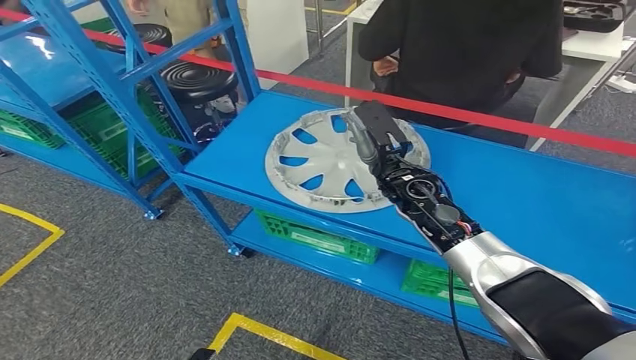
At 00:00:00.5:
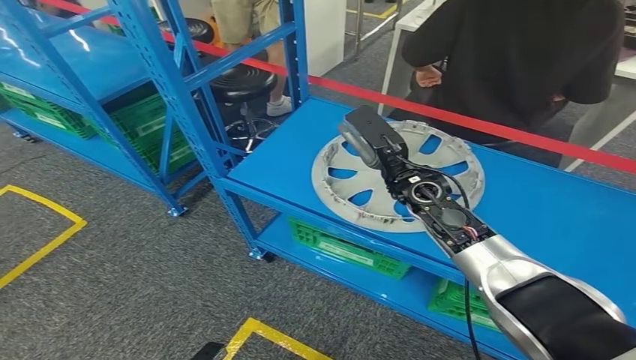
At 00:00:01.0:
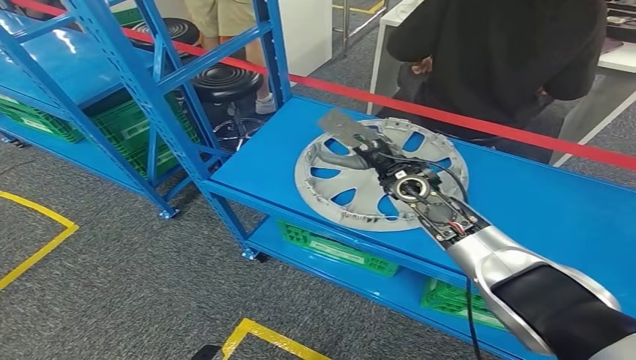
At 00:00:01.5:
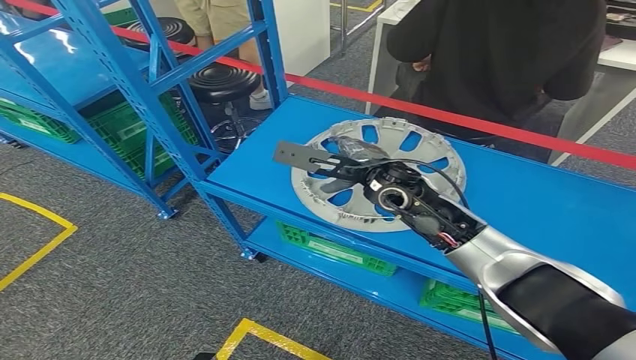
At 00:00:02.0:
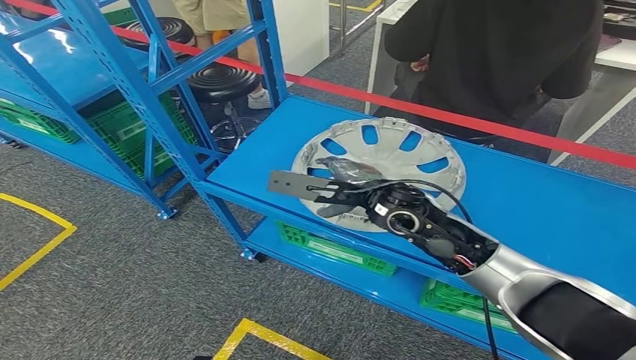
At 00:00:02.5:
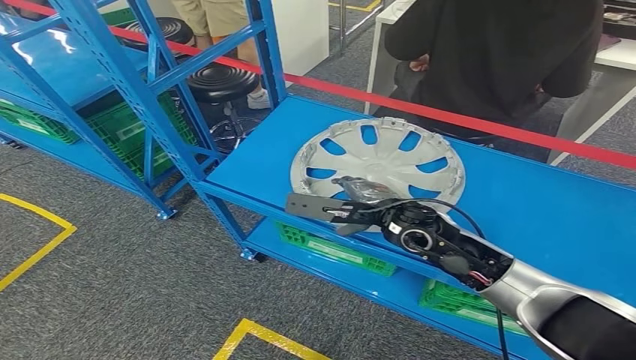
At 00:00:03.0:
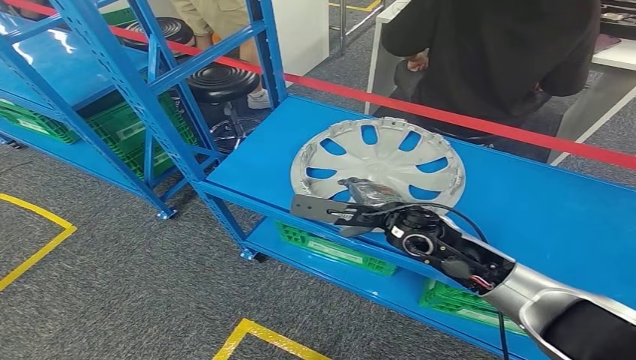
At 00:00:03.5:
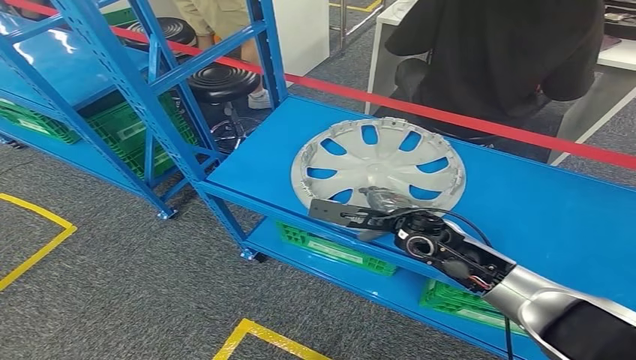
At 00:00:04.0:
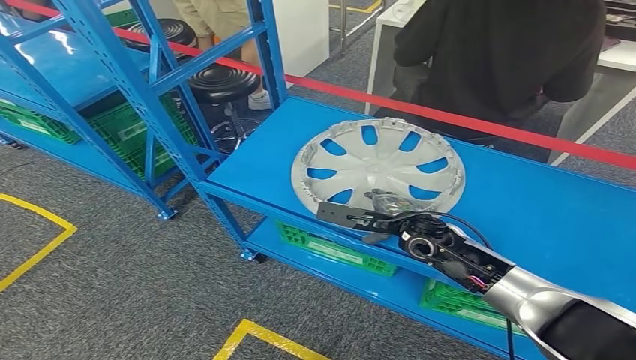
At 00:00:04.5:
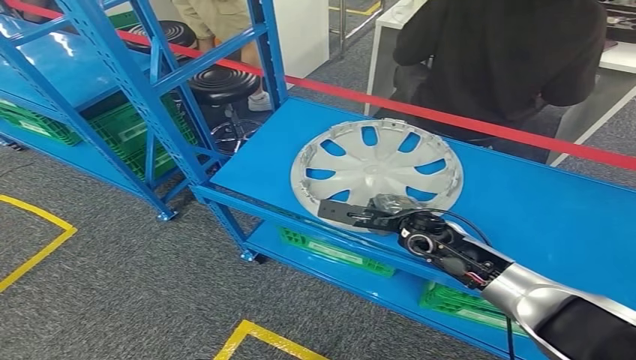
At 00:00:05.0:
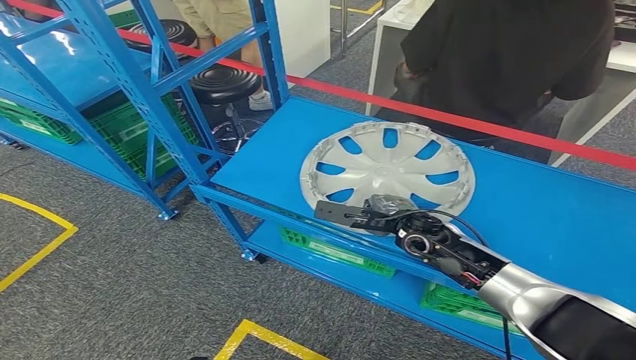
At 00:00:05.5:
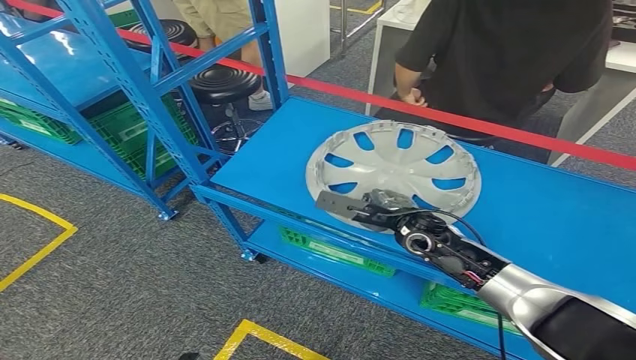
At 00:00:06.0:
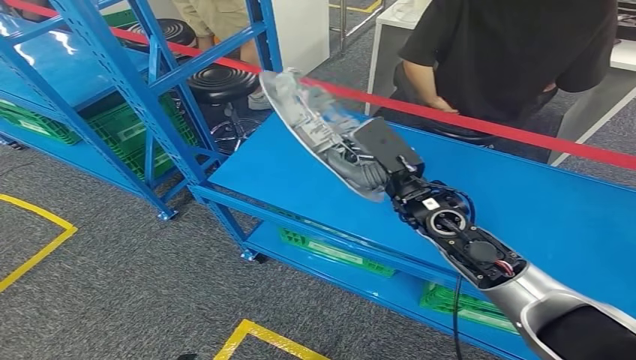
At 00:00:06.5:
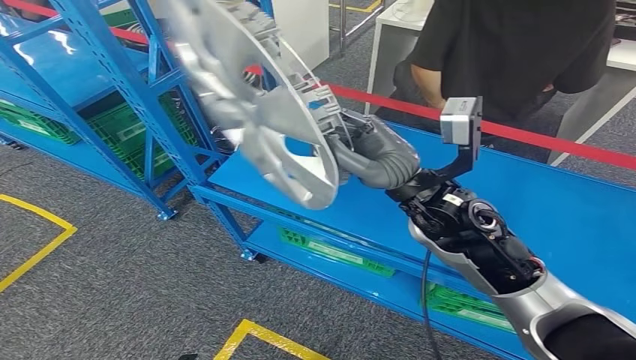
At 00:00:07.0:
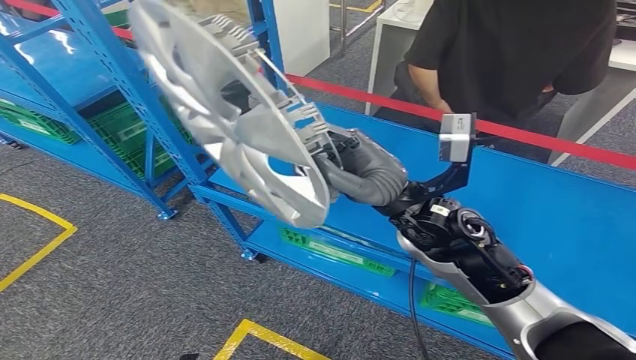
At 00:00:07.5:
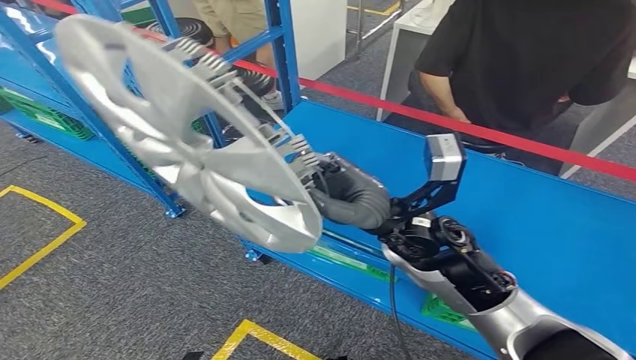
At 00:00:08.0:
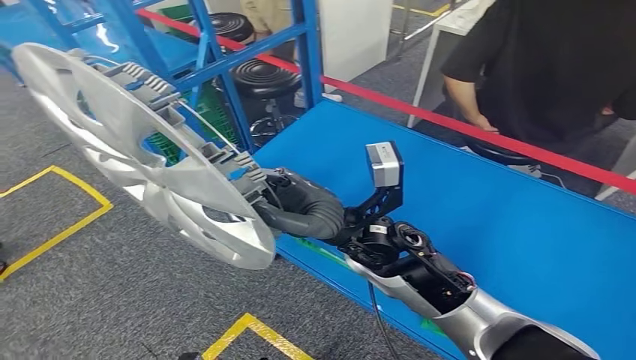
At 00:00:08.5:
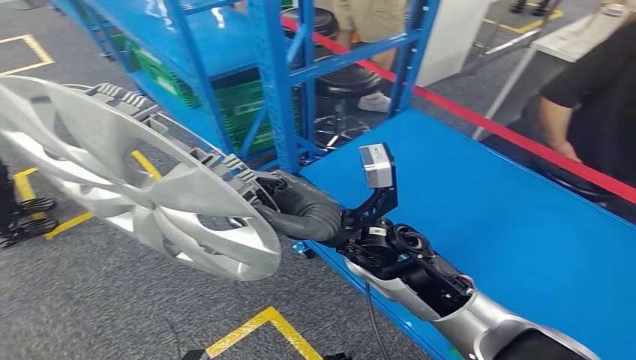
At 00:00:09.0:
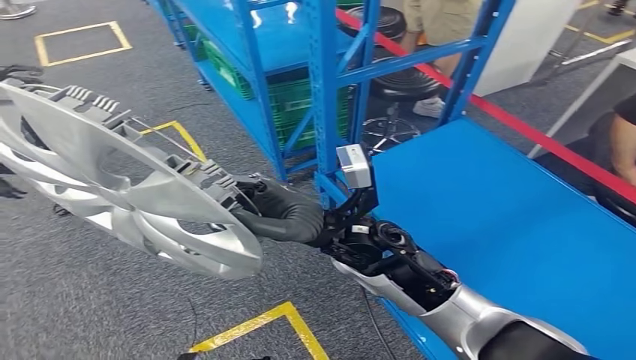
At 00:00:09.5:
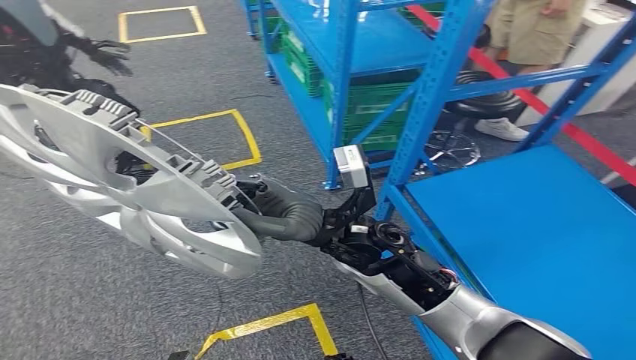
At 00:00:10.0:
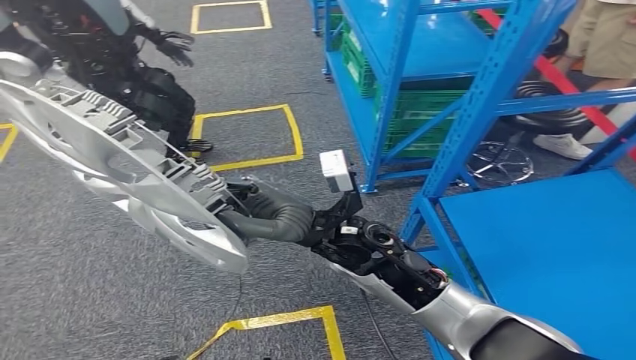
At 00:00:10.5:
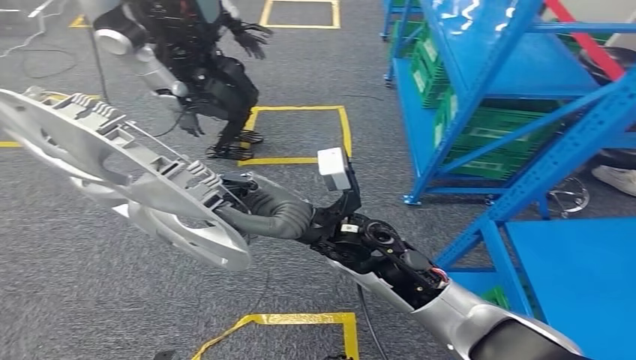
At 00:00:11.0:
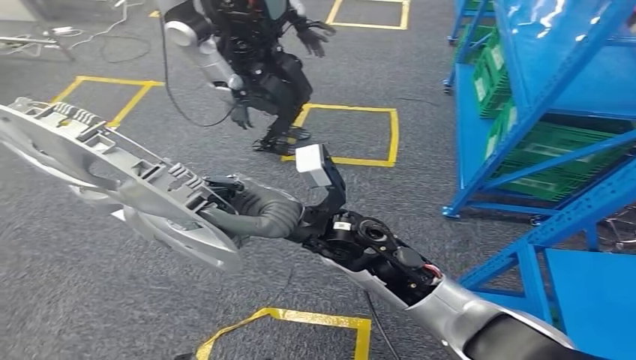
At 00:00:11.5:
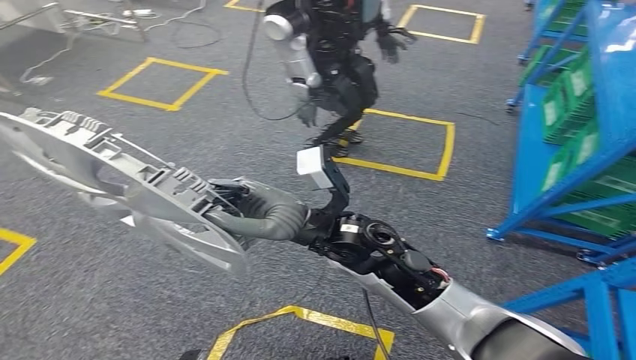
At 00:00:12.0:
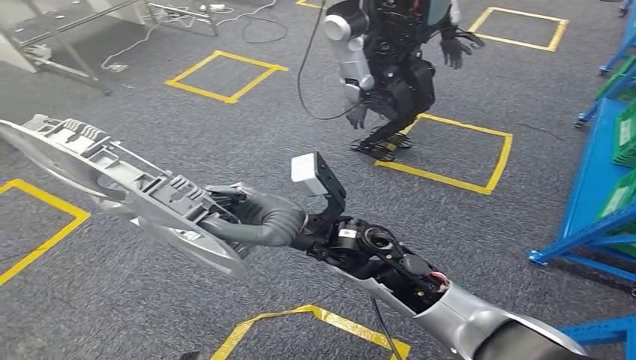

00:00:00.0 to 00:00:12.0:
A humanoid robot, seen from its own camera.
Step, 00:00:00.0 to 00:00:07.0: Pick up the small component from the shelf.
00:00:02.0 to 00:00:04.0: The right hand goes about 10 cm downward and to the right.
00:00:04.0 to 00:00:06.0: The right hand moves upward, approximately 10 cm.

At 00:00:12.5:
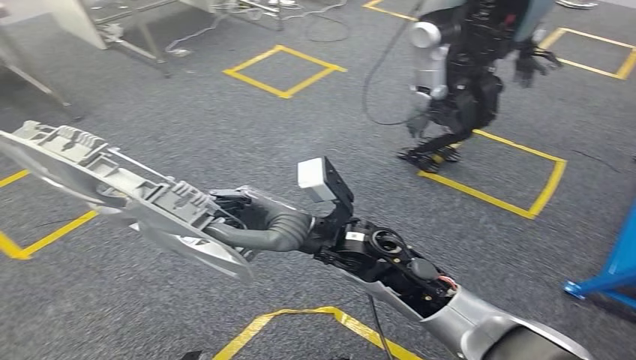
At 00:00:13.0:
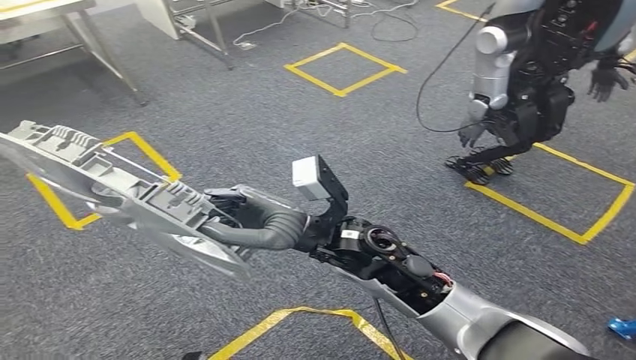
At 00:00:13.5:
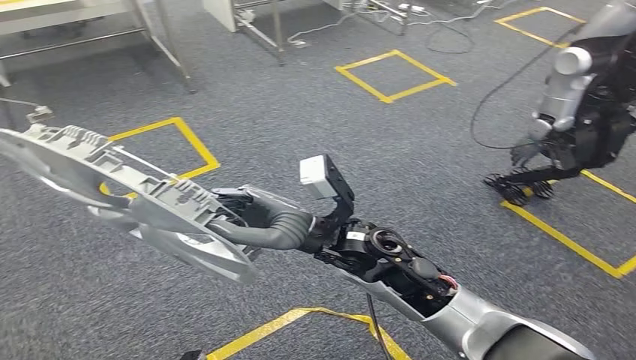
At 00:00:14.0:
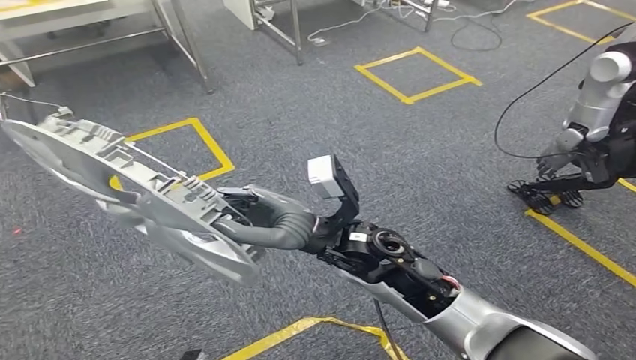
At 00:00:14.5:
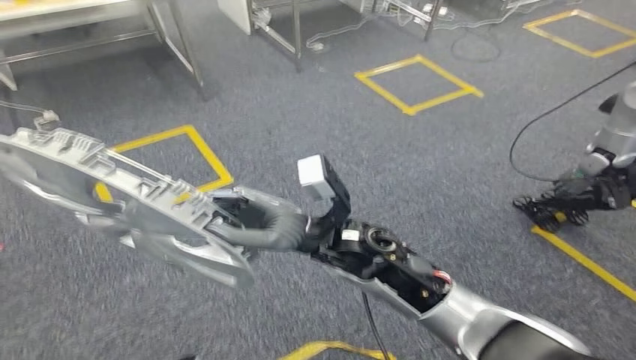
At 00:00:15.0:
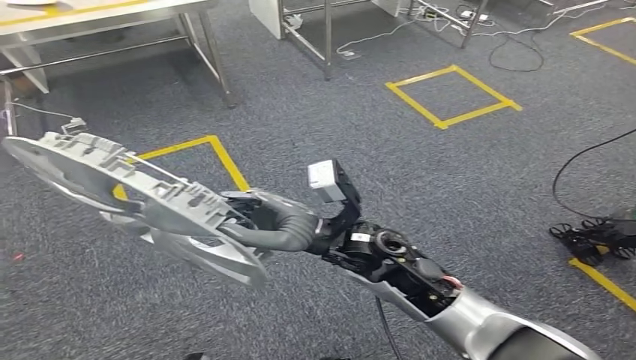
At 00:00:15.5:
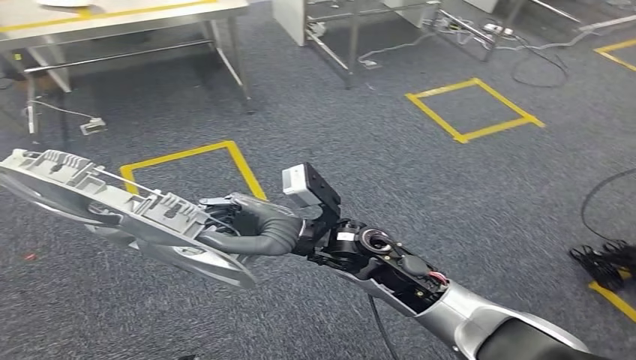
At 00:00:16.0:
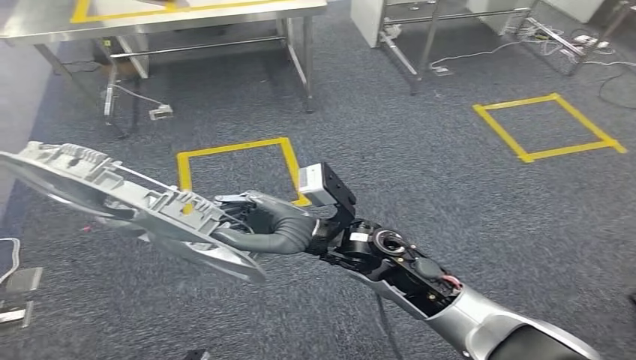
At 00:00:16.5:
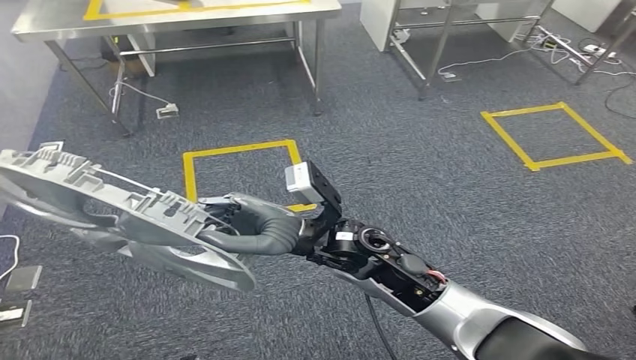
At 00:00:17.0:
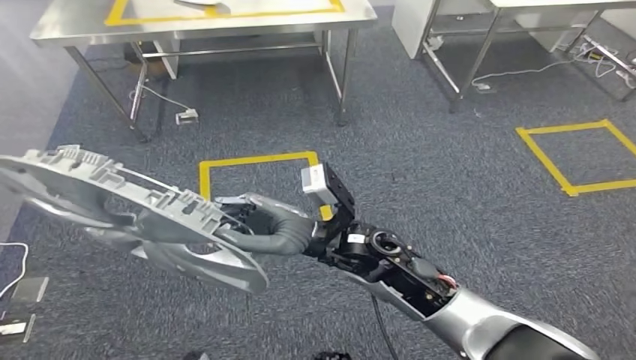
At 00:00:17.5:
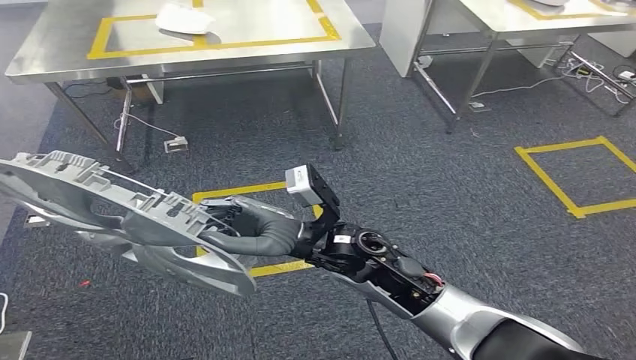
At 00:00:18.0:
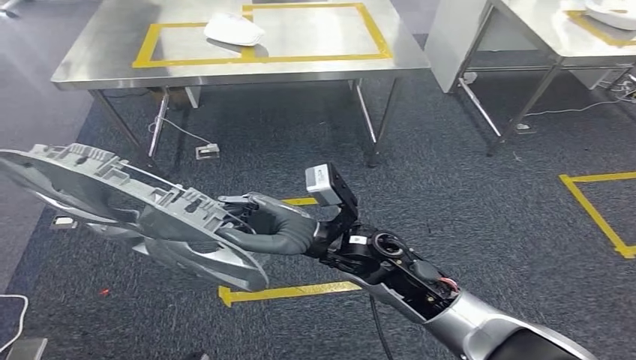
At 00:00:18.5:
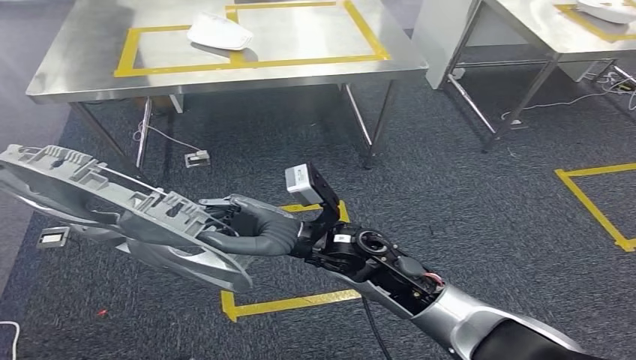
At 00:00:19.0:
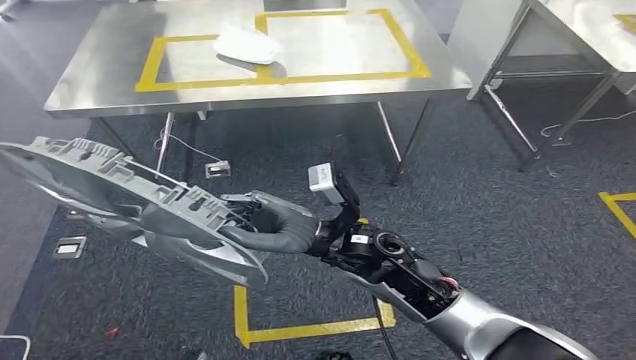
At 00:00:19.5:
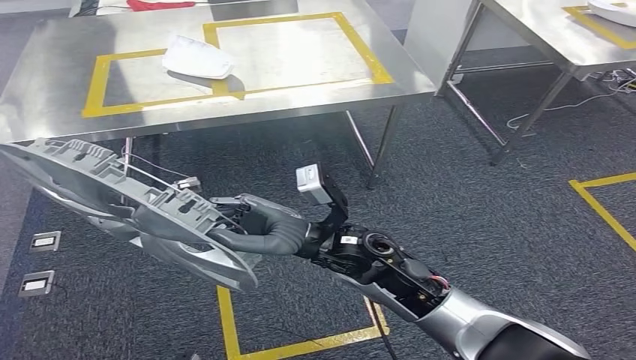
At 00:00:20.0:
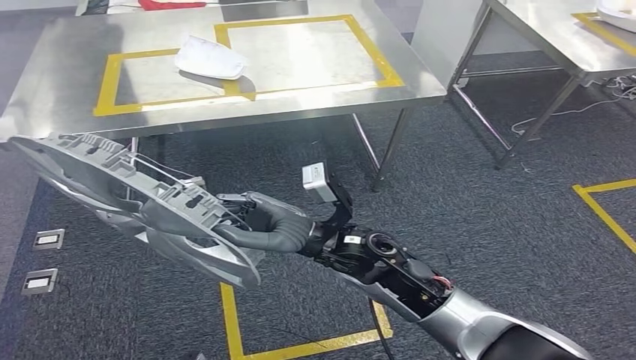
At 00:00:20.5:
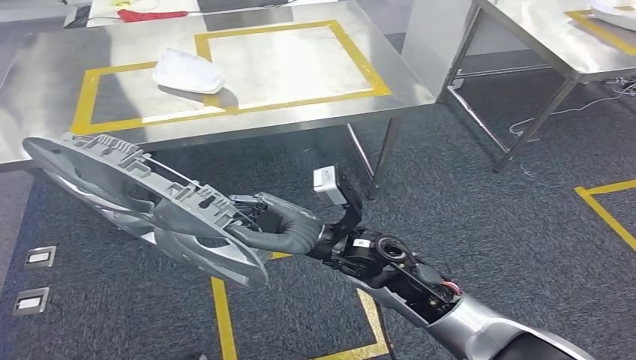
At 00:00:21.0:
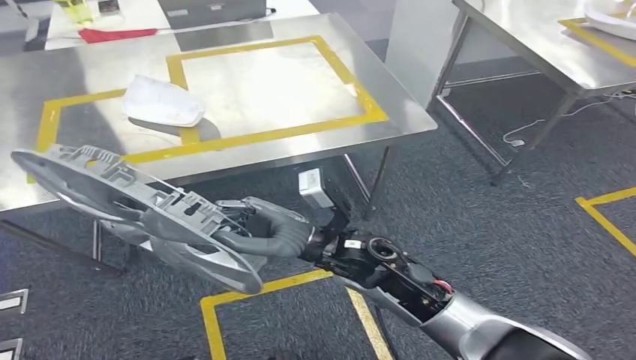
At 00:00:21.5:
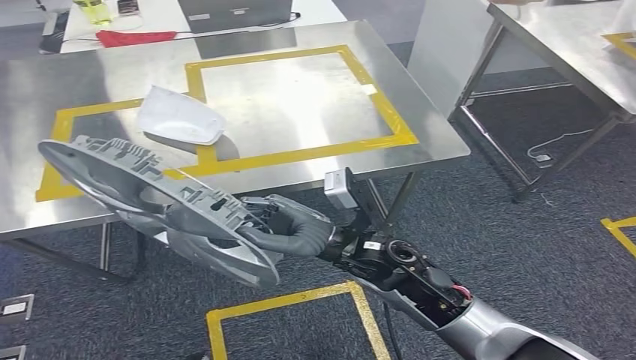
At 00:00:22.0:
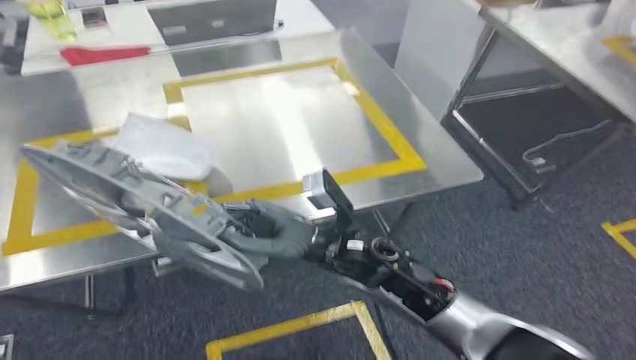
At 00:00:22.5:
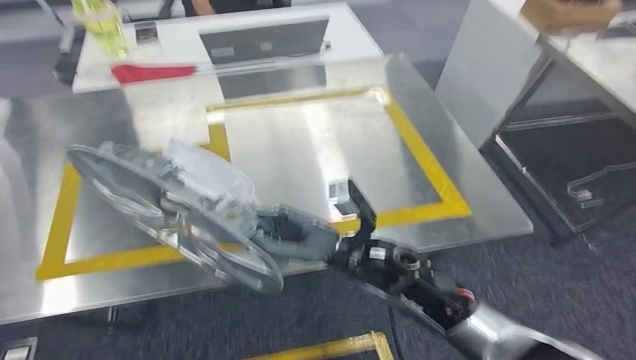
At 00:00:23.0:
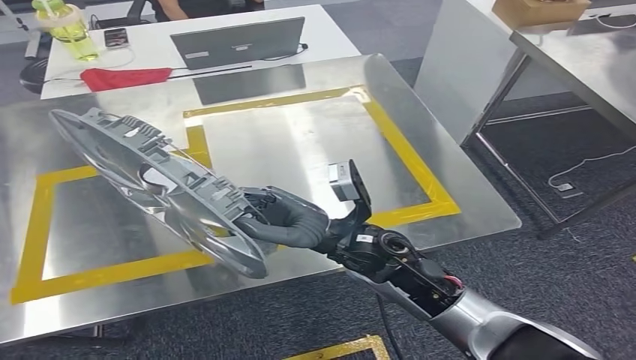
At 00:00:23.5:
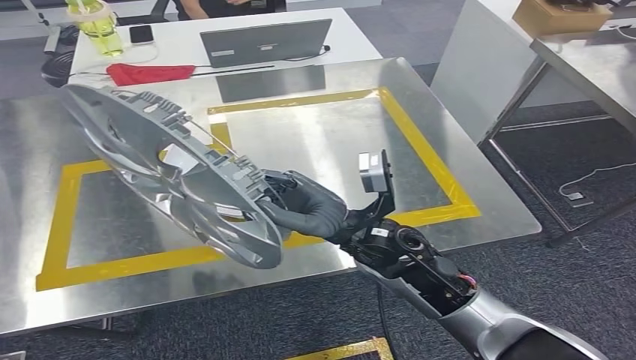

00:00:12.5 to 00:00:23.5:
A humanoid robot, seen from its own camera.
Step, 00:00:12.5 to 00:00:22.0: Move the small component to the workbench.
